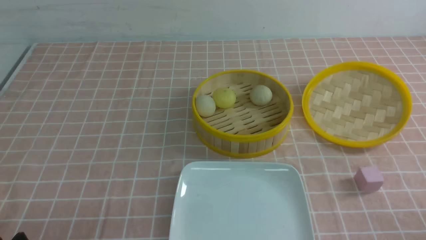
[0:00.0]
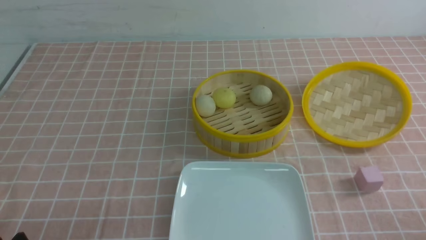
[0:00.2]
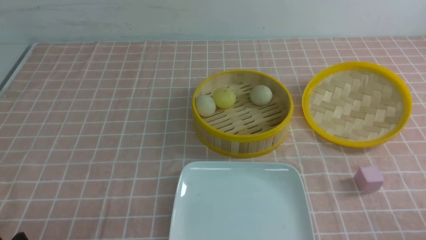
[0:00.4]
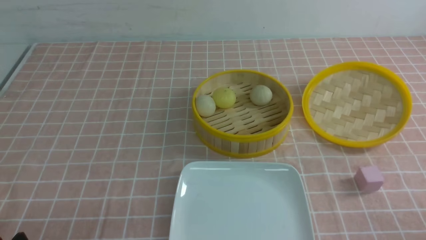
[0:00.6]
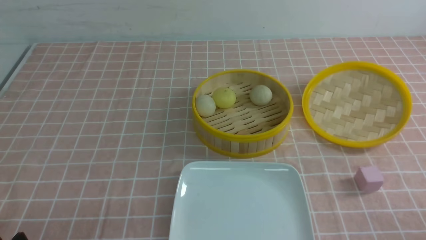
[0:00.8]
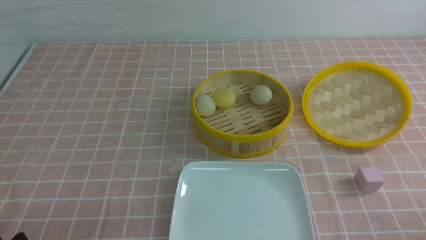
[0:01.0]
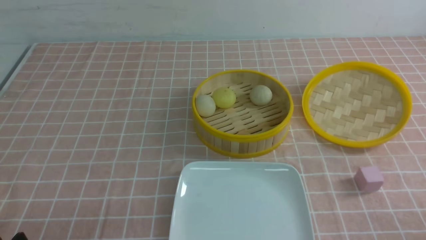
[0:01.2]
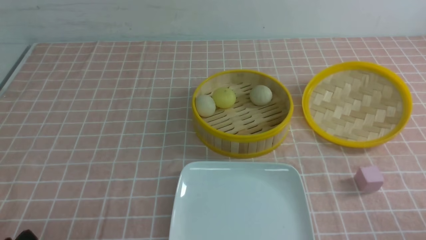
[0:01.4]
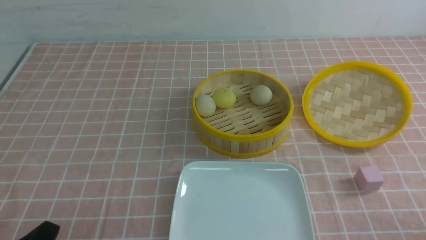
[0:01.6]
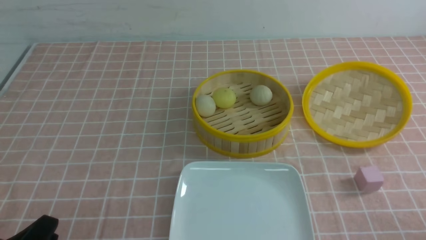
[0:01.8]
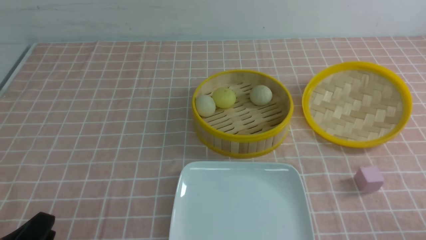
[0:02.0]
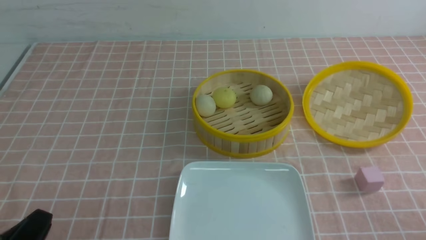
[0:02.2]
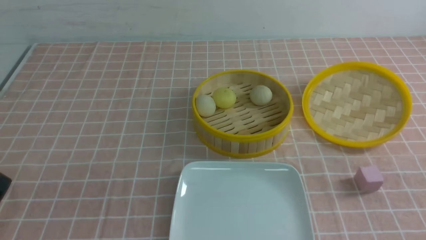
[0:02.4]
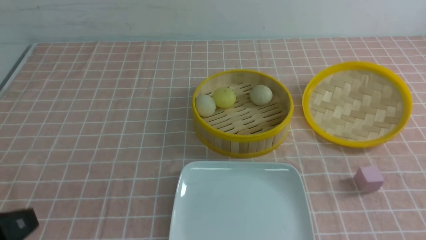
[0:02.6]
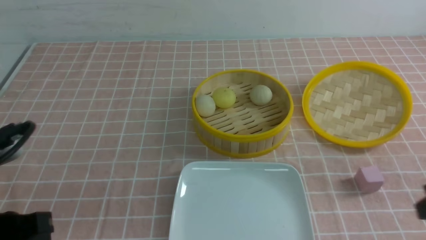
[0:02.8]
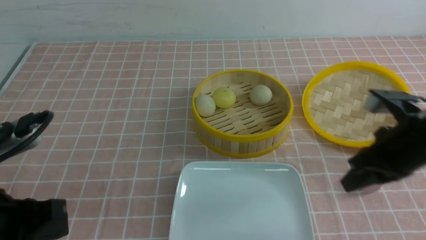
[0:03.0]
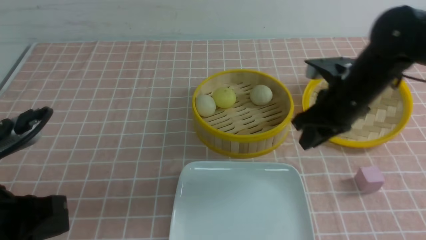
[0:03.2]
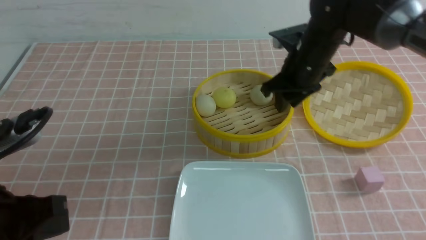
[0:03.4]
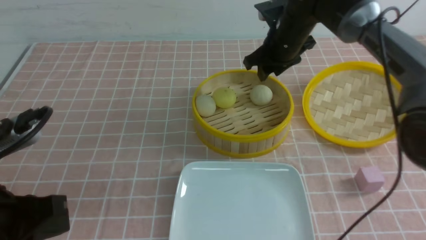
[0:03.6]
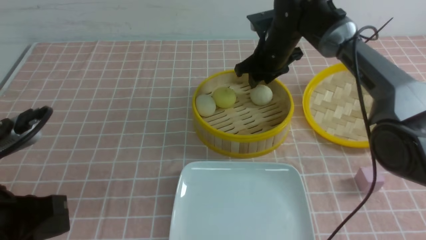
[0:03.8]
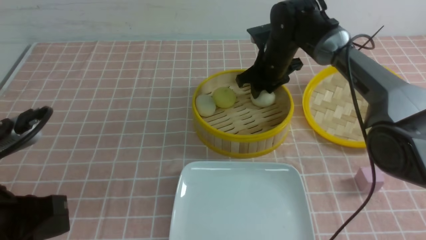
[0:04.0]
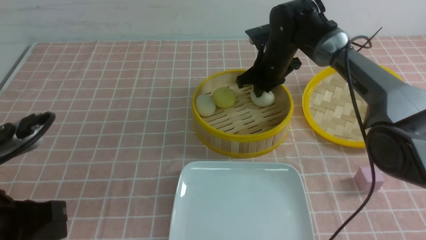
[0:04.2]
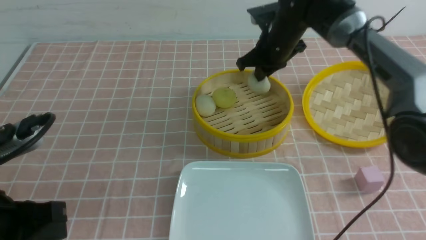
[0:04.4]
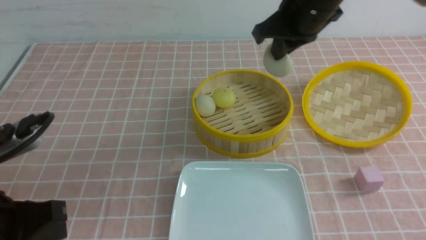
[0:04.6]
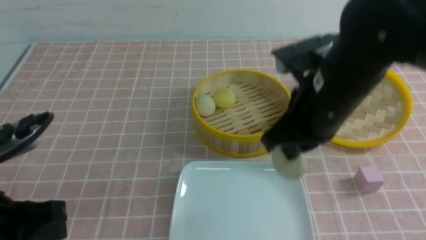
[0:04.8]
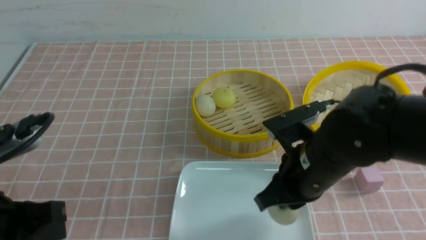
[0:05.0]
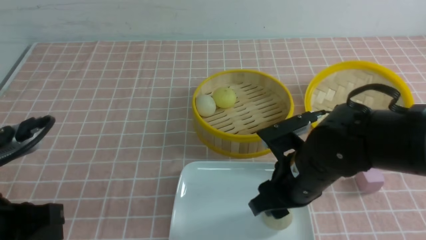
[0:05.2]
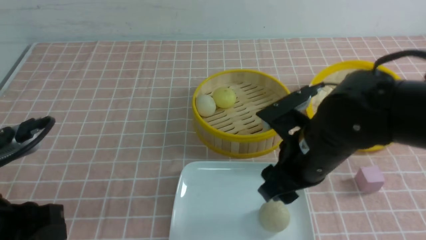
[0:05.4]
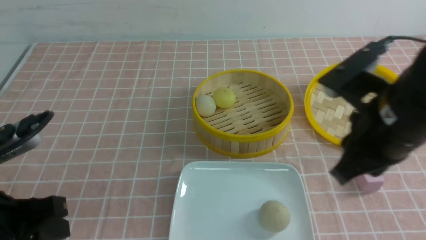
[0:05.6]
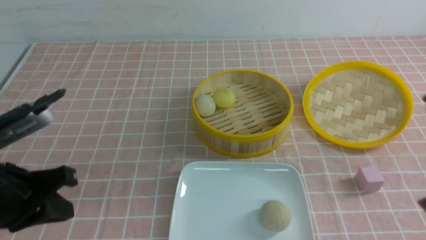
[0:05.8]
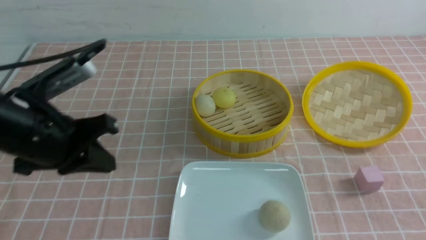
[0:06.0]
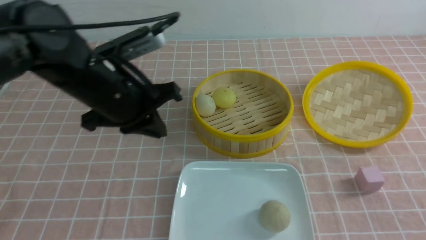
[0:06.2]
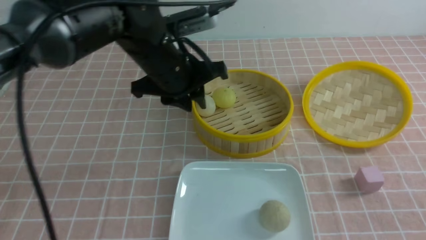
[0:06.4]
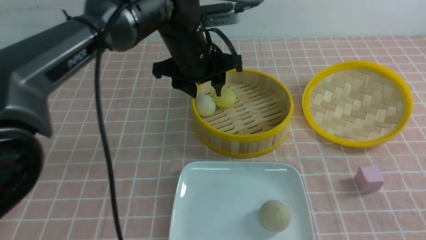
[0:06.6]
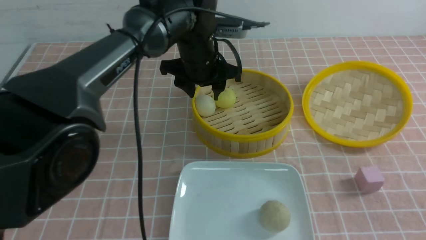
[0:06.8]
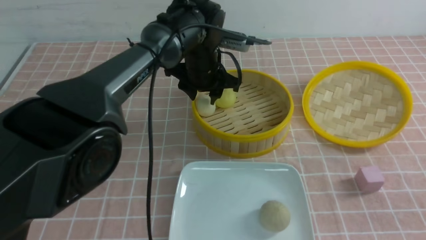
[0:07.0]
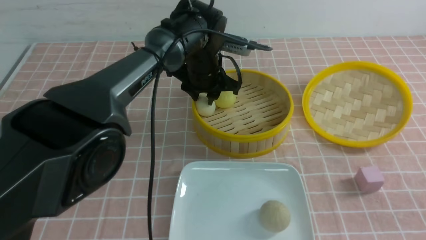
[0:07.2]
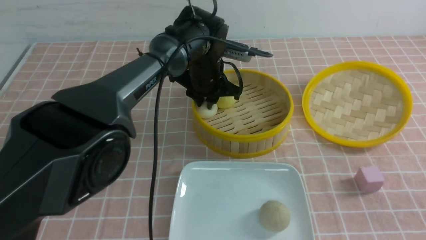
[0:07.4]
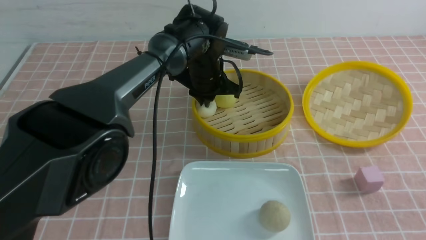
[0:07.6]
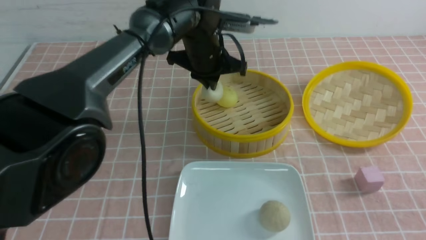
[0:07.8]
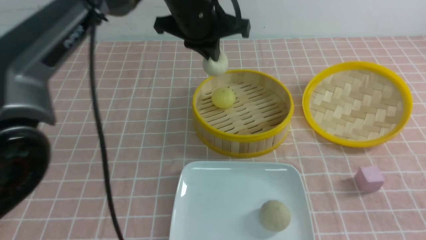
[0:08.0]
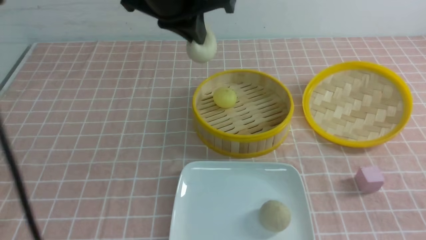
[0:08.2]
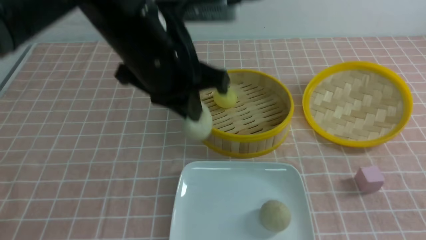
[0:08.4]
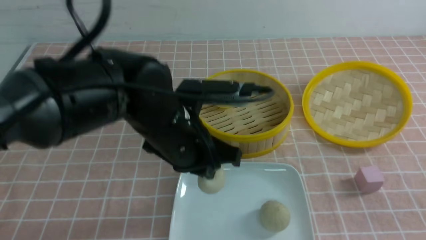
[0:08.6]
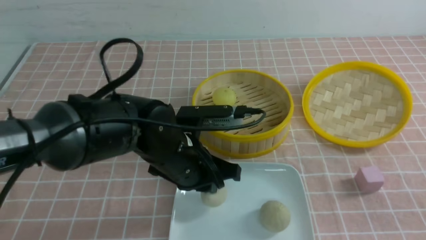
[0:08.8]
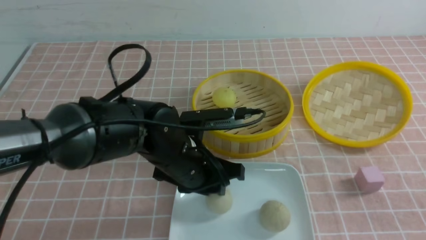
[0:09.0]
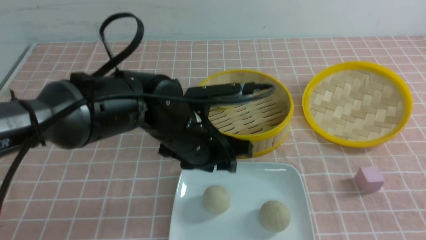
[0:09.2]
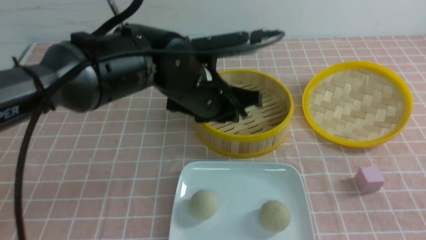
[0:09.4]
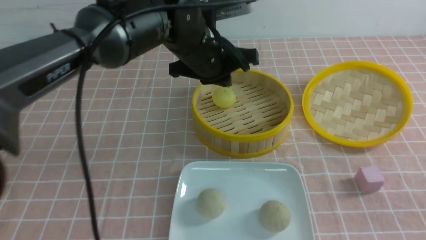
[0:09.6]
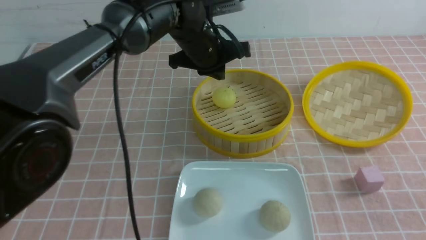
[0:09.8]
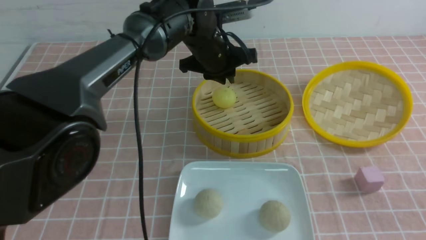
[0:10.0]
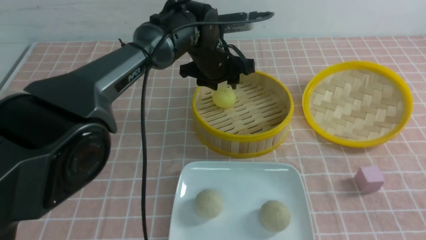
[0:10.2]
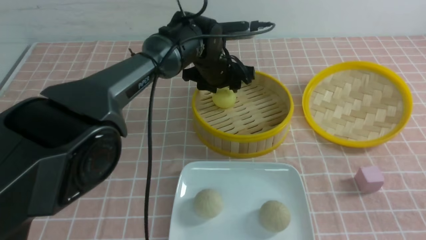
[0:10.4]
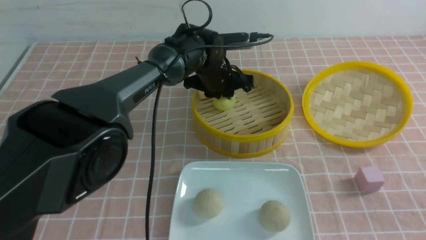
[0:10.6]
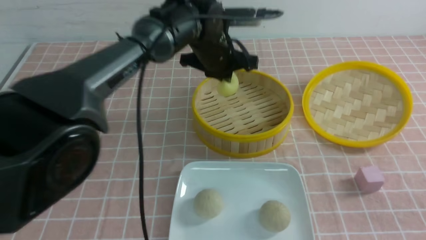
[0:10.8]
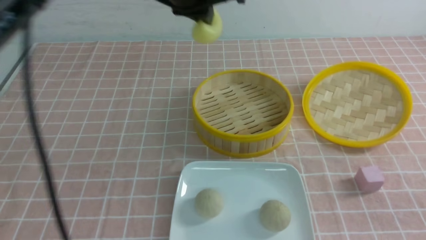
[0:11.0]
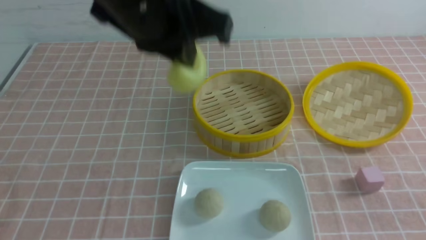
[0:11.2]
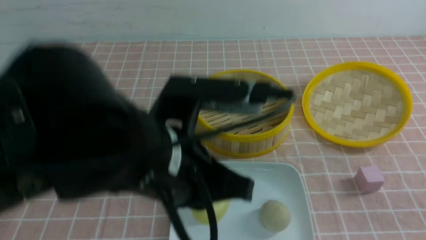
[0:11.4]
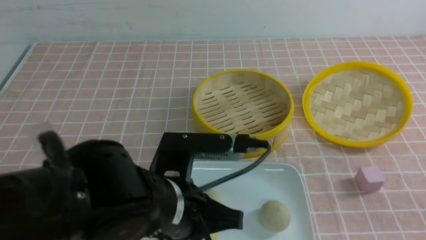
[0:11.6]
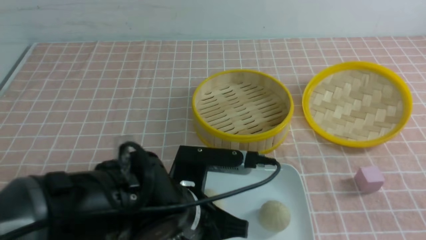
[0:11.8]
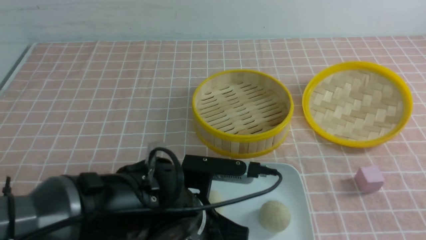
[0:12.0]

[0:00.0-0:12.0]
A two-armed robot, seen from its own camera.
Step, 0:00.0 to 0:04.0: use the right arm to grab the steamed stuffed bun that is closest to it.
Step, 0:04.4 to 0:05.2: use the right arm to put the steamed stuffed bun into the plate.
Step, 0:05.4 to 0:07.2: use the left arm to grab the steamed stuffed bun that is closest to it.
Step, 0:07.6 to 0:09.0: use the left arm to put the steamed stuffed bun into the plate.
Step, 0:09.2 to 0:10.6: use the left arm to grab the steamed stuffed bun that is closest to it.
0:01.6 to 0:03.0: The left gripper heads upward and forward, covering approximately 10 cm, and closes up. The right gripper heads forward and upward, covering about 25 cm, and closes its fingers.
0:03.0 to 0:04.4: The right gripper goes roughly 20 cm forward and to the left, and opens, then closes once more.
0:04.4 to 0:06.0: The right gripper goes roughly 35 cm backward and to the right, and opens, then closes again, while the left gripper moves forward, some 10 cm, and opens and closes again.
0:06.0 to 0:07.6: The left gripper heads forward and to the right, covering approximately 30 cm, and opens, then closes once more.
0:07.6 to 0:09.0: The left gripper travels backward by approximately 20 cm, and opens up.
0:09.0 to 0:10.4: The left gripper shifts about 20 cm forward, and closes, then reopens.
0:10.4 to 0:12.0: The left gripper moves backward, roughly 30 cm, and closes its fingers.

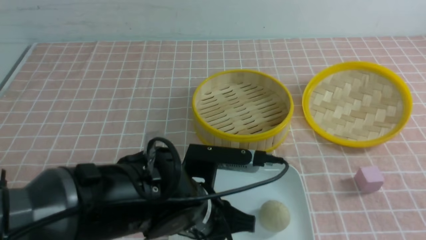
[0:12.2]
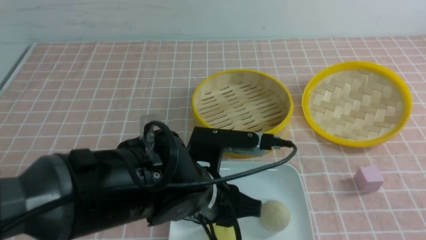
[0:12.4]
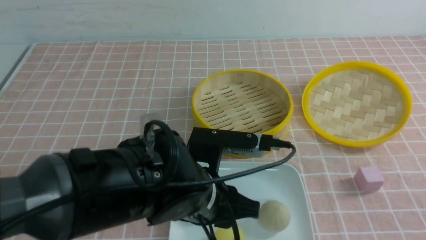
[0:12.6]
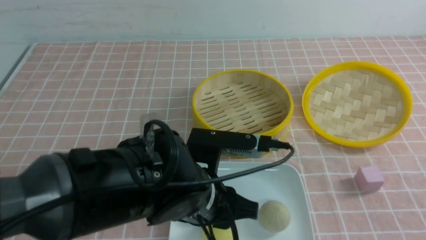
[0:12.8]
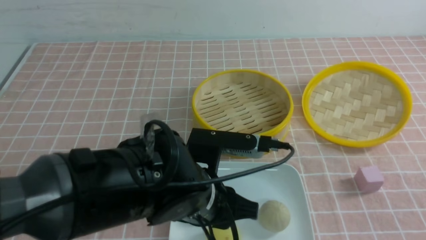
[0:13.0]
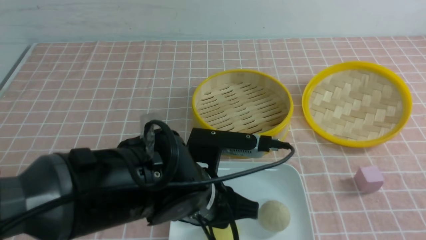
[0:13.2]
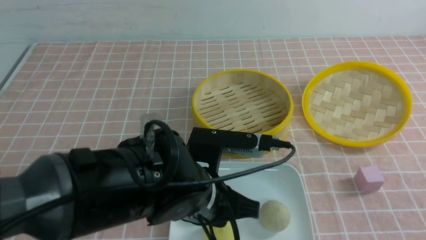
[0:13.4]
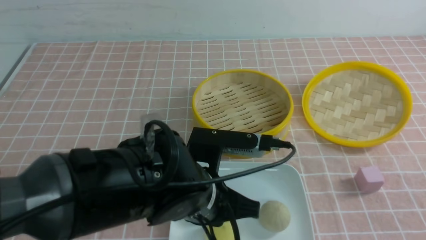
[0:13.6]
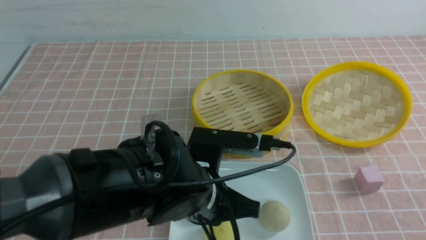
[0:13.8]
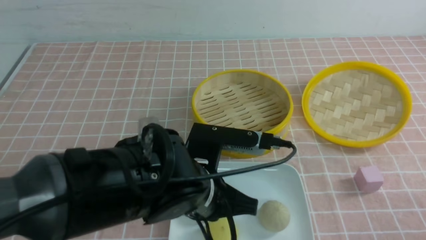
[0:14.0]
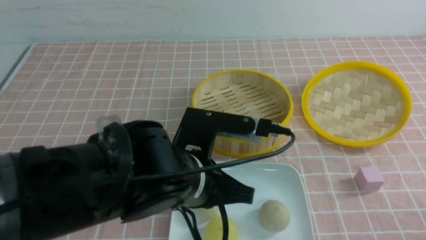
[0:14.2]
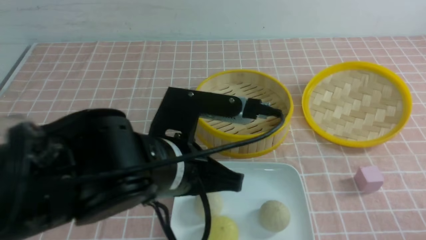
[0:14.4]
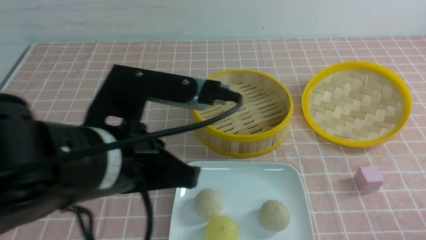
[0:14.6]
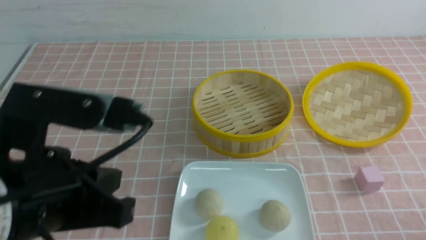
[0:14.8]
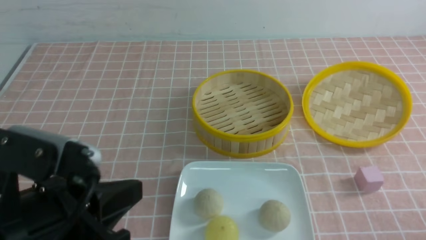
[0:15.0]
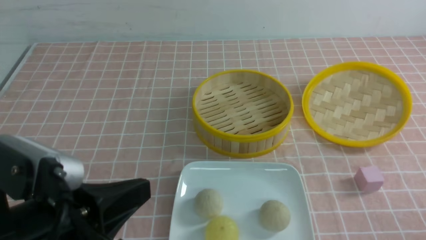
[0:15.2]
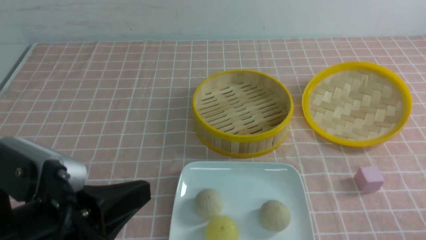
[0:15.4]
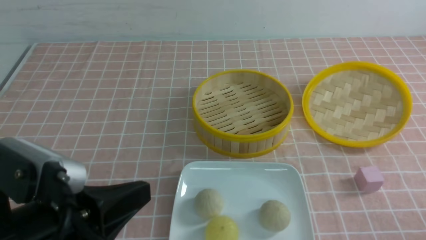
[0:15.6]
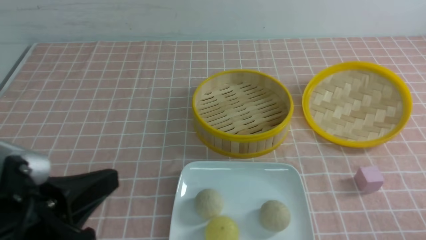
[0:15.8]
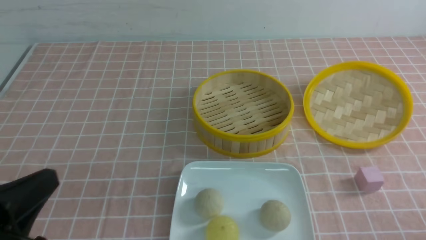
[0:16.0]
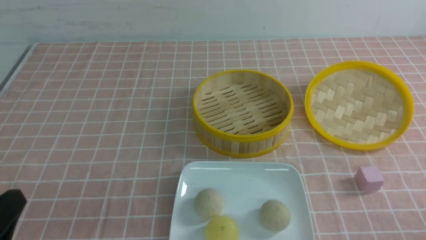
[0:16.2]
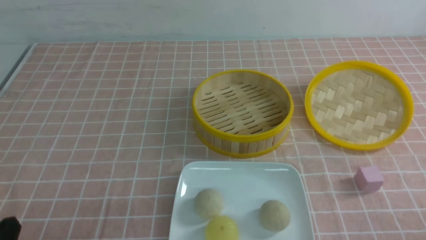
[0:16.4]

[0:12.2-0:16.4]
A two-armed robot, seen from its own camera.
0:12.2 to 0:13.6: The right gripper shifts roughly 5 cm downward. Meanwhile the left gripper closes its fingers.
0:13.6 to 0:15.0: The right gripper travels downward by about 10 cm; the left gripper goes approximately 20 cm to the left, backward and upward.
0:15.0 to 0:16.4: The left gripper heads downward and to the left, covering some 15 cm.
